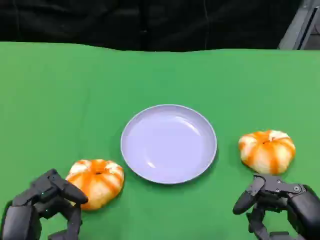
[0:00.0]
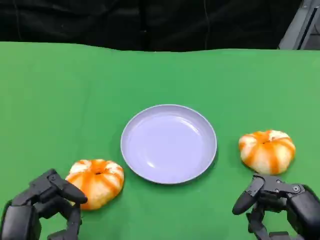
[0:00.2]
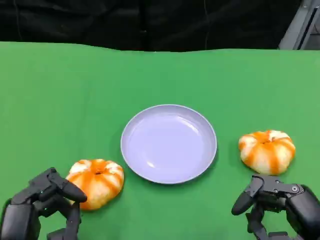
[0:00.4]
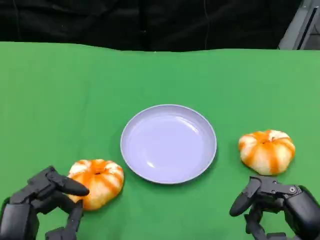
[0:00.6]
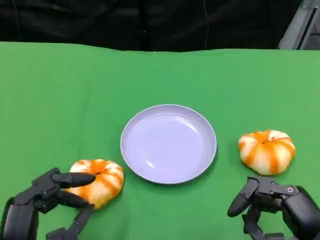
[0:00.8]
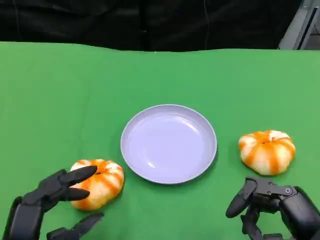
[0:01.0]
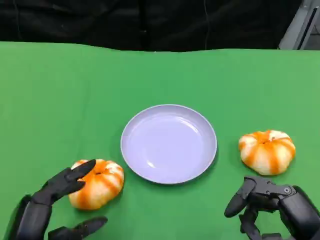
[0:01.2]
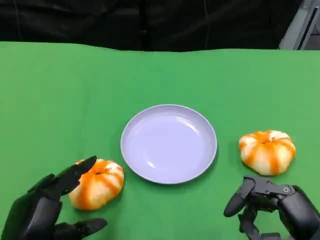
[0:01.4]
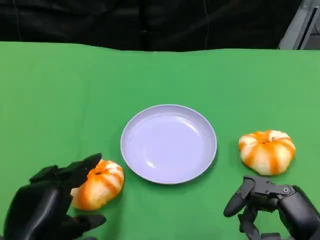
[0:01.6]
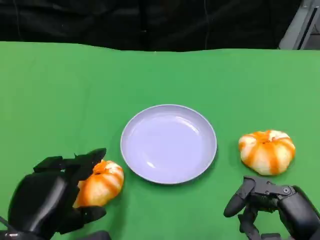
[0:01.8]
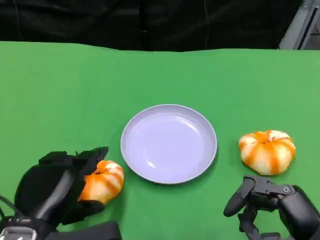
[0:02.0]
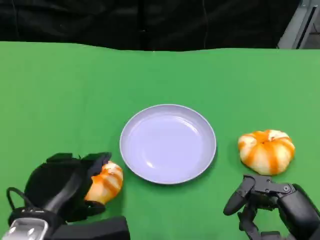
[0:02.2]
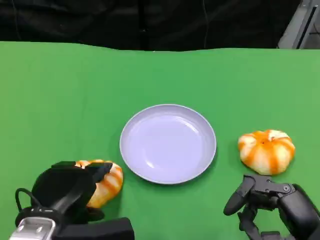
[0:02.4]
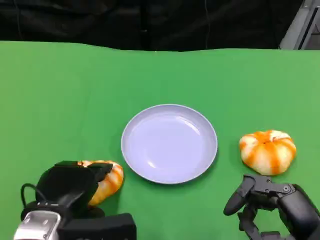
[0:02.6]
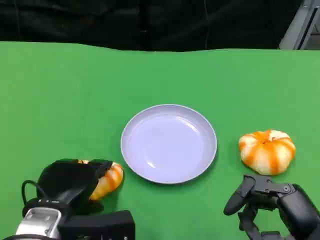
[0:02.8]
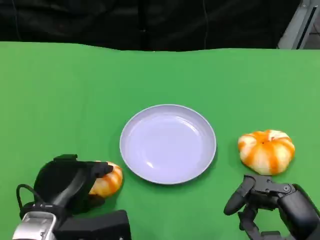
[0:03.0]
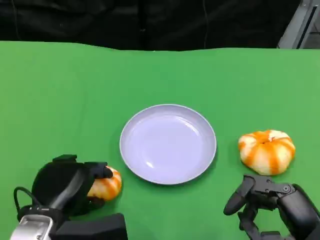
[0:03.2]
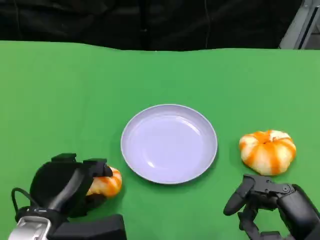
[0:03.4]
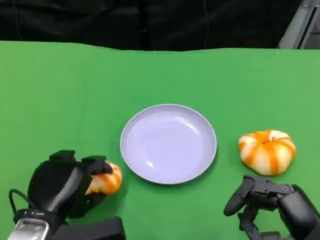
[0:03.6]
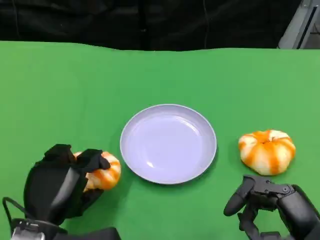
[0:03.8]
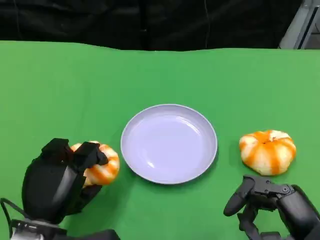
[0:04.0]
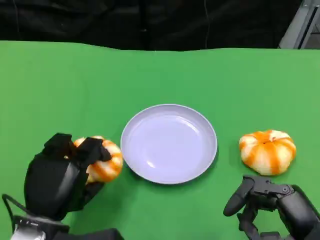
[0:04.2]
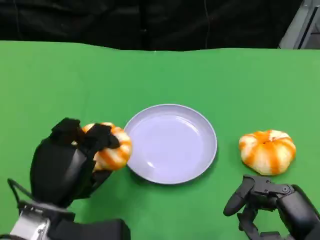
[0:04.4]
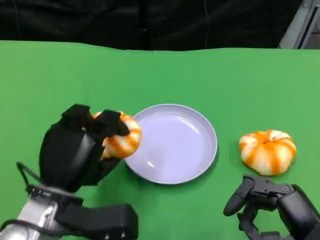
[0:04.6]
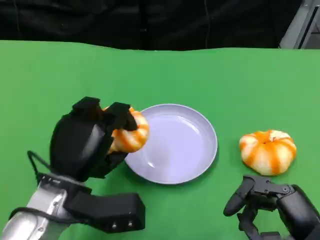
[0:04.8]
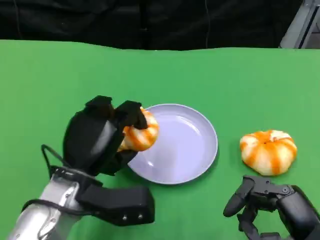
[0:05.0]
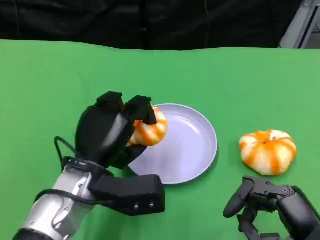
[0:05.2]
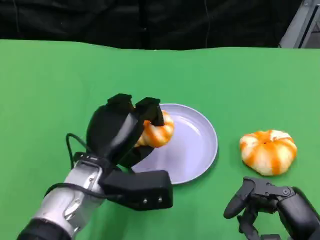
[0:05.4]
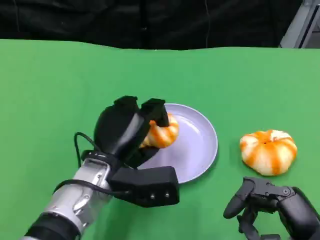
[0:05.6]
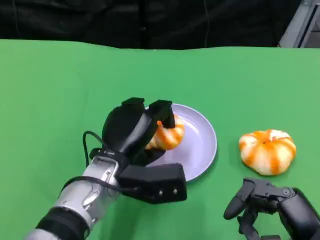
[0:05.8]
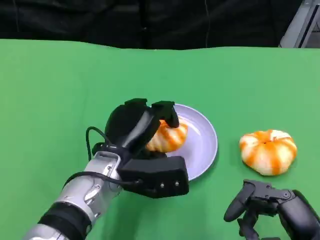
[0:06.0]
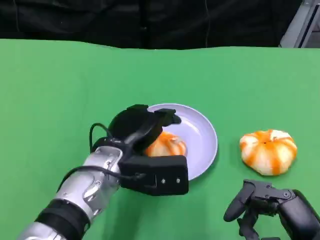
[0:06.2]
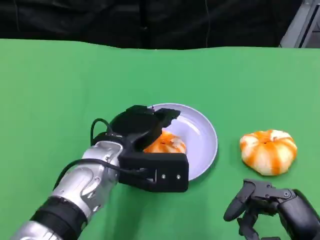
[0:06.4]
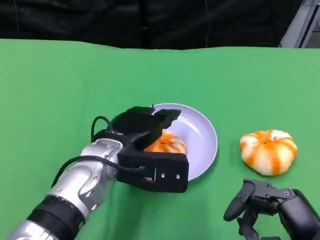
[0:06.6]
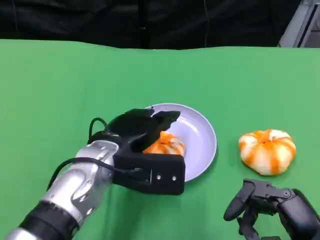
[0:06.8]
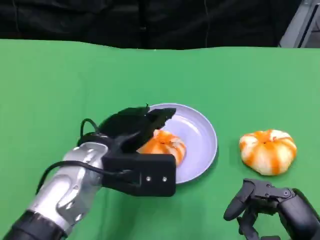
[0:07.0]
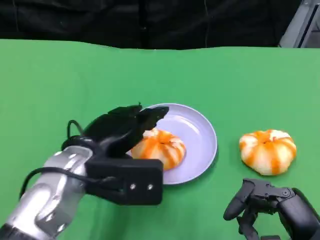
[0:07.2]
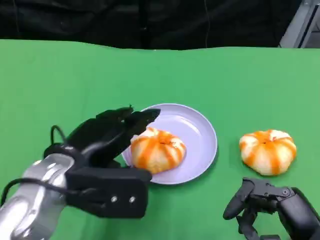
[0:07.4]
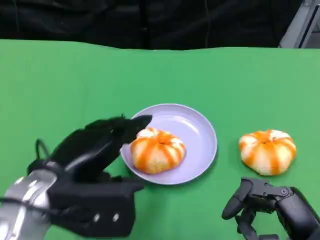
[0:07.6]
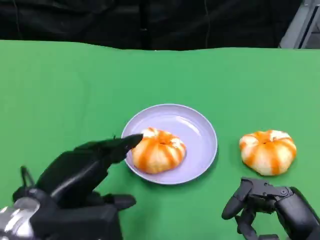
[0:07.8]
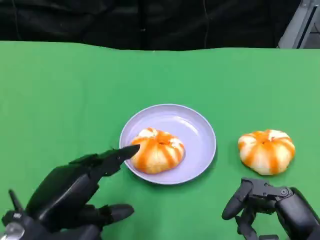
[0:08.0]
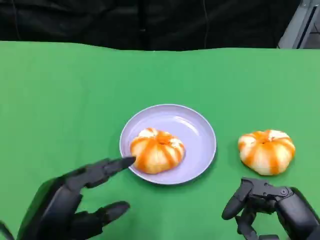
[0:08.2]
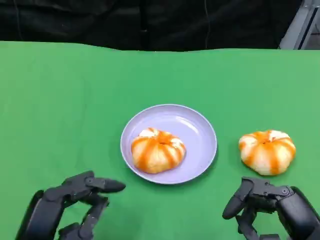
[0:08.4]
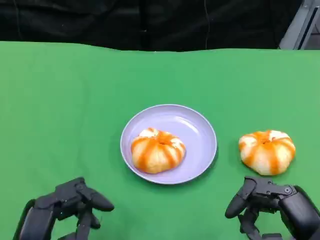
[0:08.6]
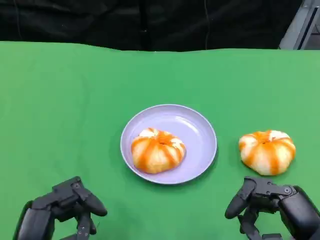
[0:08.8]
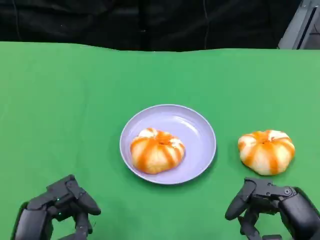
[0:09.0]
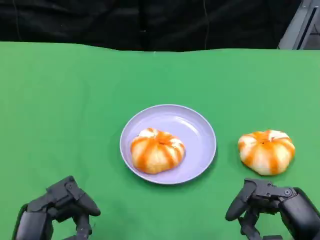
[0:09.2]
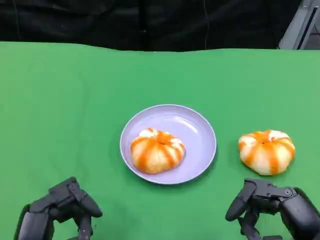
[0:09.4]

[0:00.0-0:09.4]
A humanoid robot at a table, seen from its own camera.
Task of the whole recording: Grasp the bread from the table and place it into the plate.
0:01.6 to 0:03.2: The left hand heads forward, covering roughly 5 cm.
0:03.2 to 0:04.8: The left hand shifts by about 5 cm.
0:04.8 to 0:06.2: The left hand travels to the right by approximately 5 cm.
0:06.2 to 0:07.8: The left hand travels to the left and backward by about 15 cm.
0:07.8 to 0:09.4: The left hand goes about 10 cm backward and downward.

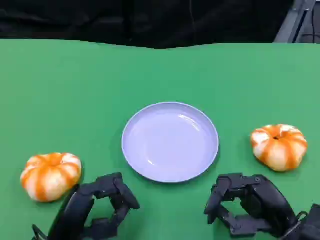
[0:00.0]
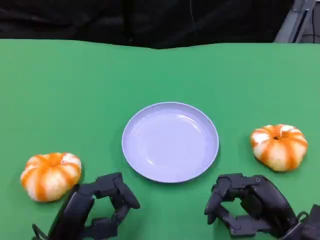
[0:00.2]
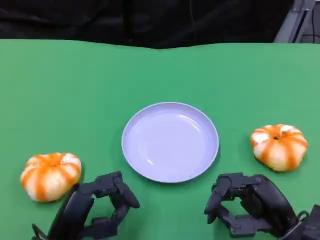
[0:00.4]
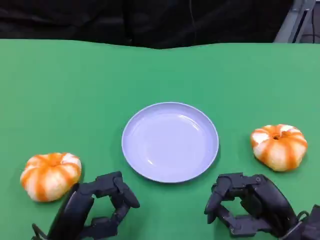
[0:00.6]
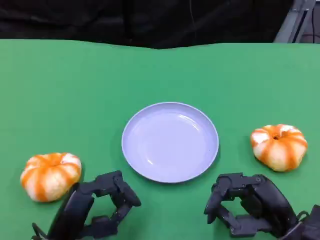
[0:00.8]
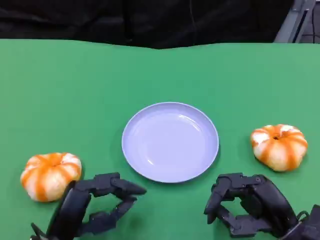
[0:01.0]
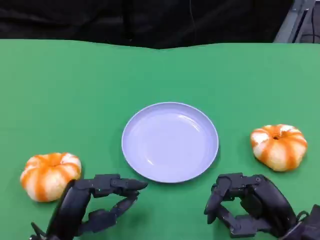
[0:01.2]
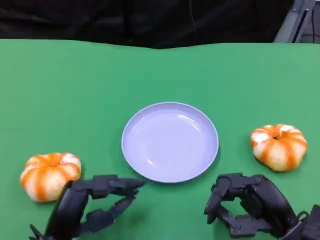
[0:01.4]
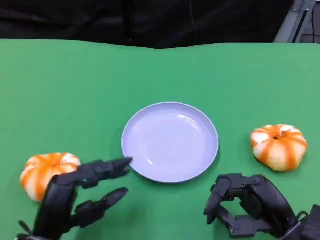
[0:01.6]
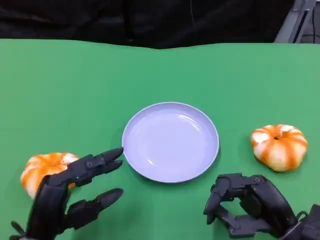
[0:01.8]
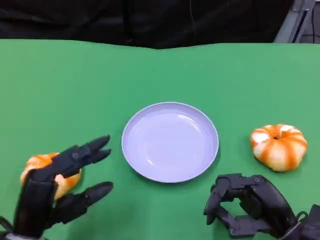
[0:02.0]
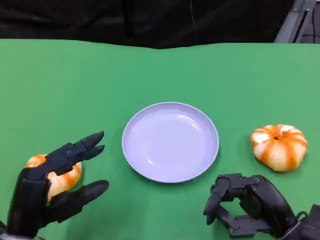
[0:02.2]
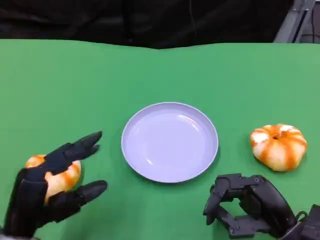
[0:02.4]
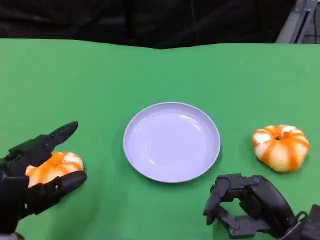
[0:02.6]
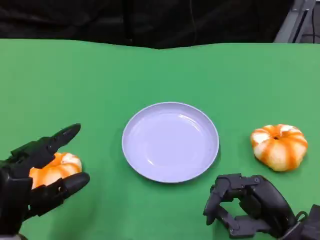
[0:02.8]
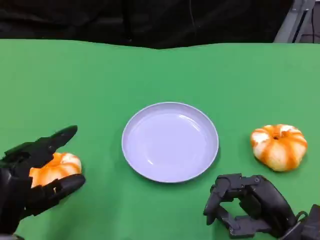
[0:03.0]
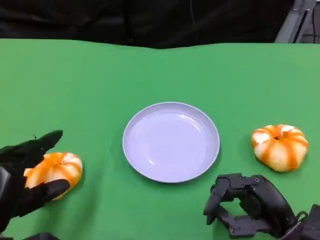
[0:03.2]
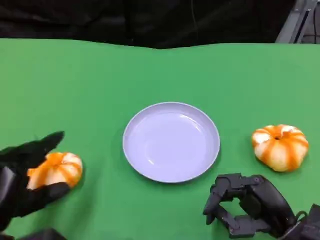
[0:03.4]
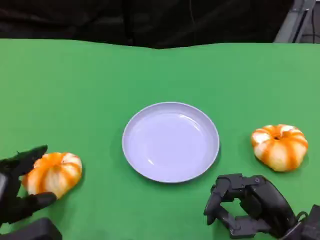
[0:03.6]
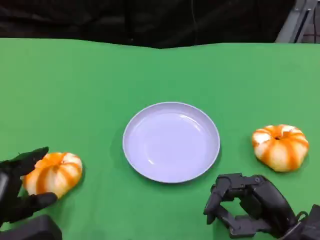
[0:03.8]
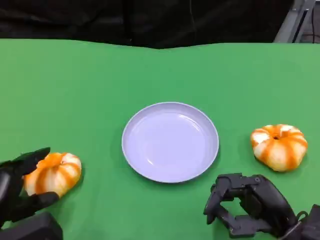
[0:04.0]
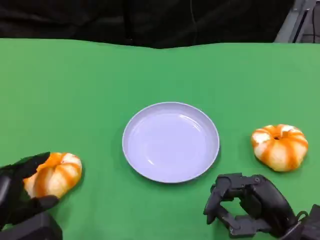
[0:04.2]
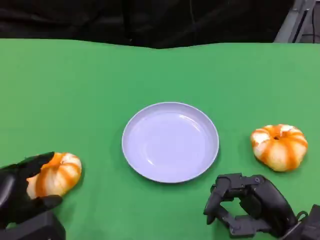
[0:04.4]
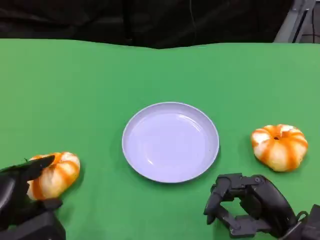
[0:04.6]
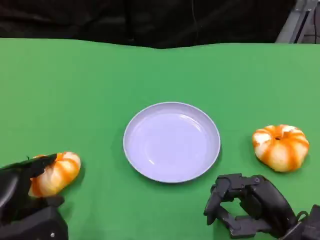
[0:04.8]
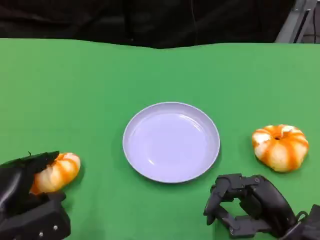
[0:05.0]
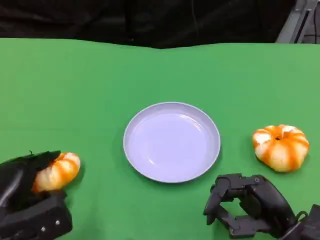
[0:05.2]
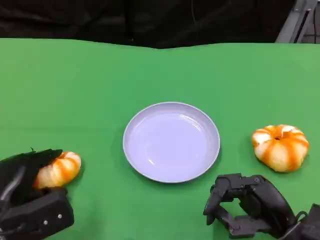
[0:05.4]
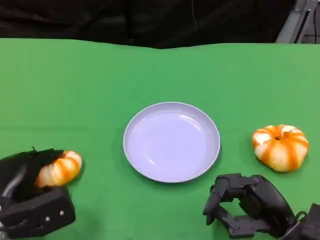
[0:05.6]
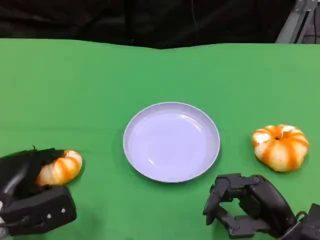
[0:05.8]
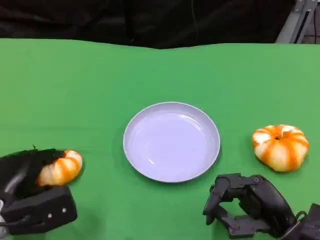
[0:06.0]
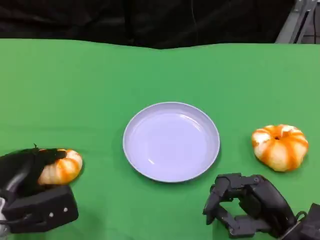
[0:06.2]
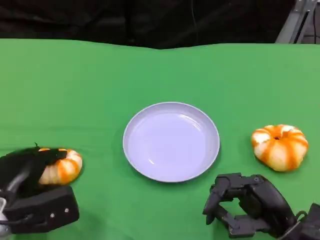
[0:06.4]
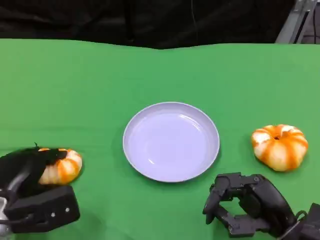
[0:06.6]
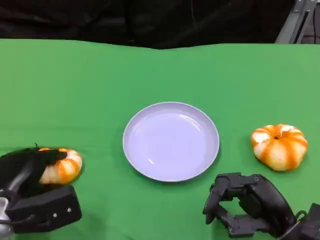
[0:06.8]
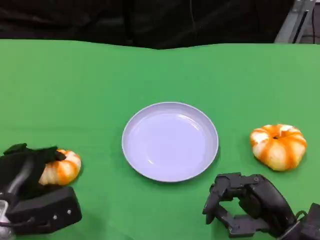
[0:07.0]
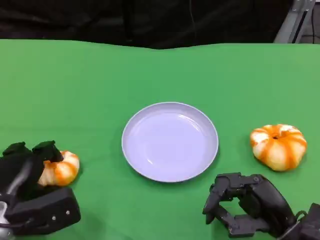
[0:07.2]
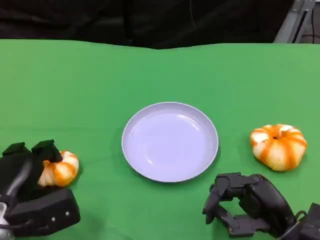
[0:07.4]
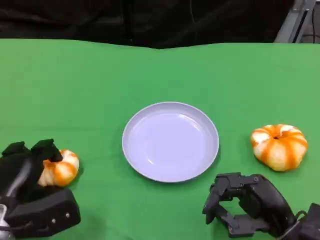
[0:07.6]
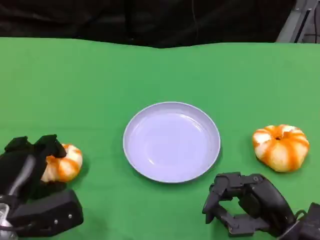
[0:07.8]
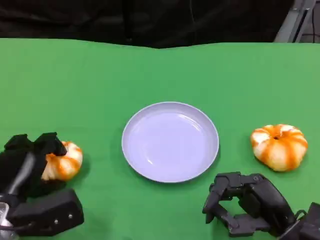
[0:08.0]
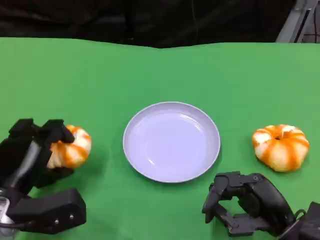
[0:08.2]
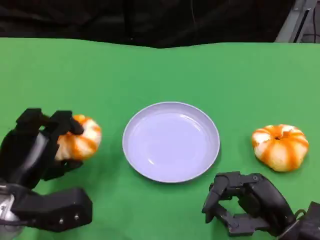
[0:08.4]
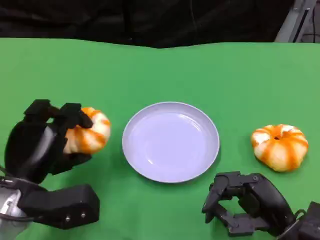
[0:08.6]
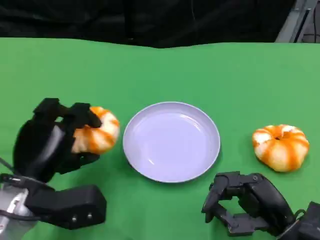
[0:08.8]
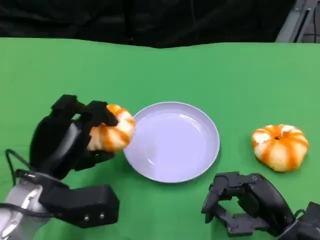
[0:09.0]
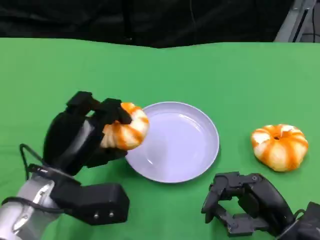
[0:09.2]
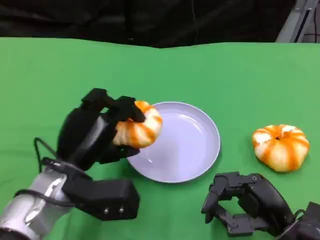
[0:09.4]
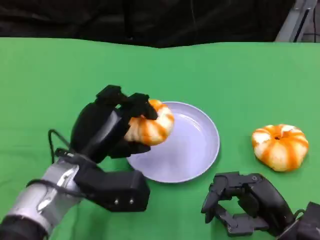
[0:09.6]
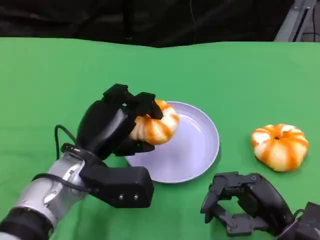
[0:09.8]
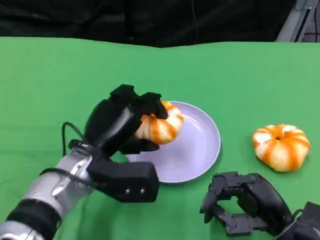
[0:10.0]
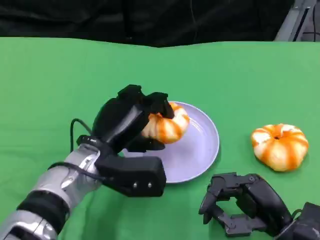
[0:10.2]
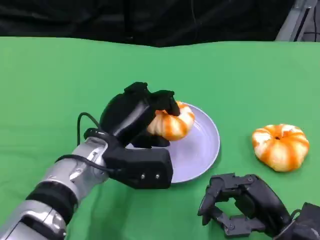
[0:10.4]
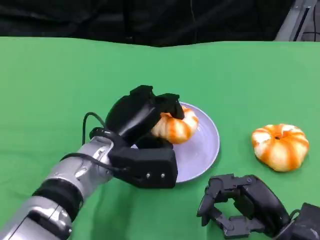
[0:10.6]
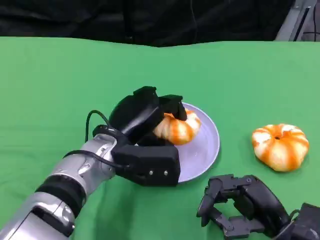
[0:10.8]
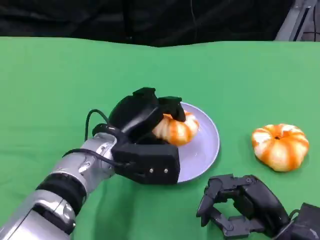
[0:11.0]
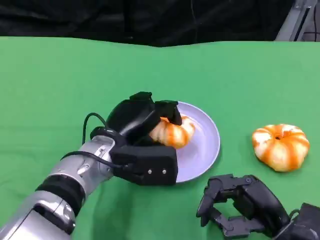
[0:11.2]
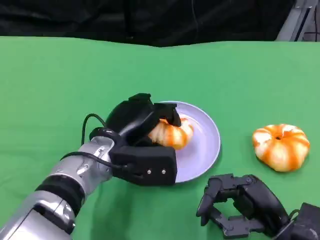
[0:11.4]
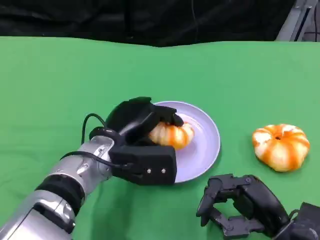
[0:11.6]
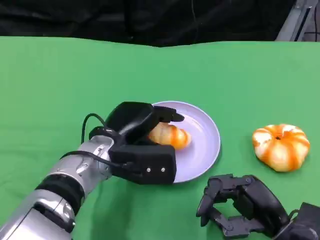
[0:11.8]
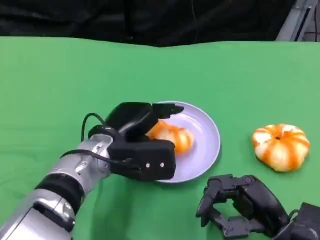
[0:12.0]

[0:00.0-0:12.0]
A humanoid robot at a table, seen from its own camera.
Task of the whole recording: Grasp the bread from the table and place it into the plate.
0:00.0 to 0:01.6: There are only small adjustments of the hands.
0:01.6 to 0:03.0: The left hand changes place by approximately 5 cm.
0:04.4 to 0:06.0: The left hand shifts by roughly 5 cm.
0:06.0 to 0:07.6: The hands make only small movements.
0:07.6 to 0:09.0: The left hand goes some 10 cm to the right and upward.
0:09.0 to 0:10.4: The left hand is displaced to the right and forward by about 10 cm.
0:10.4 to 0:12.0: The hands make only small movements.

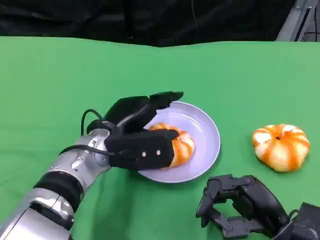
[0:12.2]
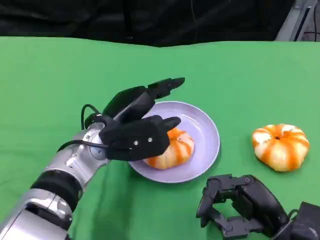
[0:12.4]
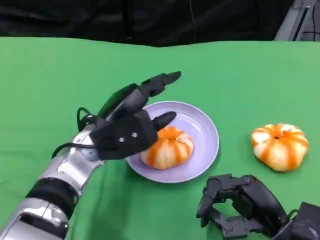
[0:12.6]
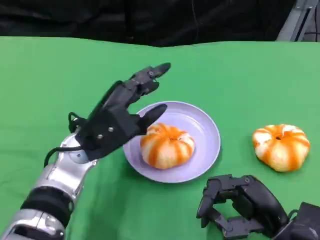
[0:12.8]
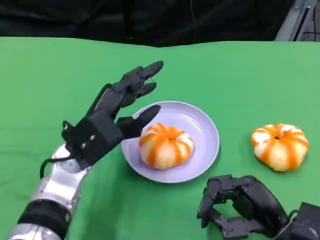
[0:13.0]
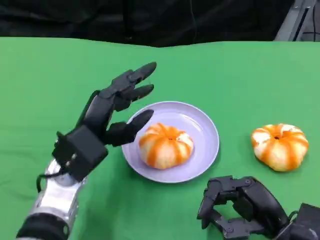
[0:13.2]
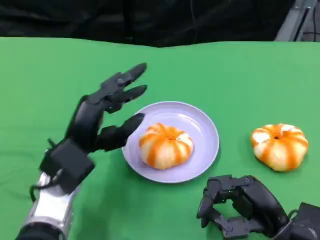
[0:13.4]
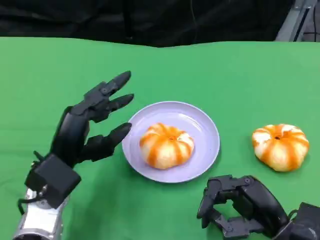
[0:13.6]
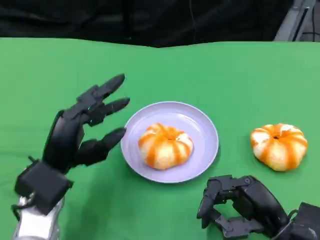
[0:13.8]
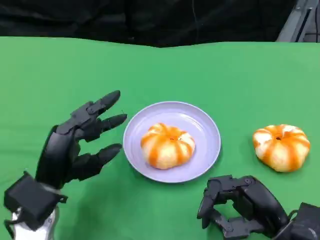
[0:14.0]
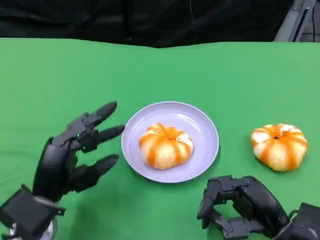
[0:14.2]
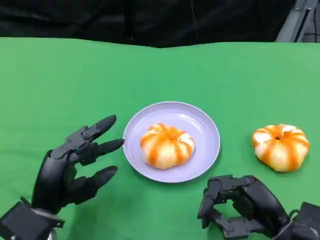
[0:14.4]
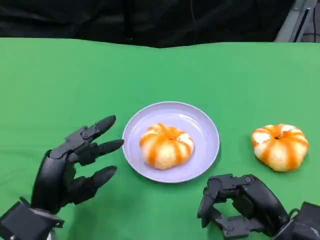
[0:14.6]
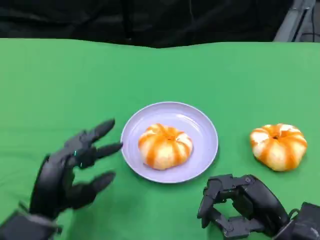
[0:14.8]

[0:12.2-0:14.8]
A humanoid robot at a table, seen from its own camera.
Task of the whole recording: Grasp the bread from the table and place it into the plate.
0:12.2 to 0:13.4: The left hand heads to the left, covering about 5 cm.
0:13.4 to 0:14.8: The left hand goes approximately 10 cm backward and downward.
